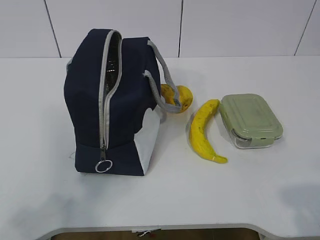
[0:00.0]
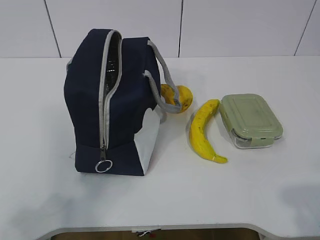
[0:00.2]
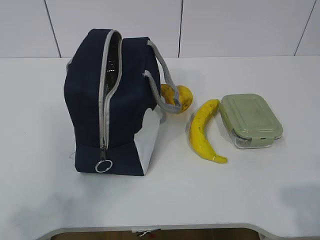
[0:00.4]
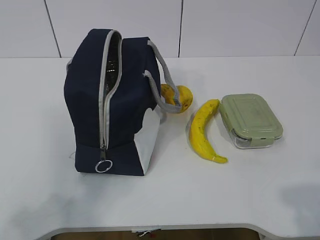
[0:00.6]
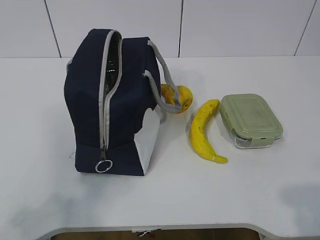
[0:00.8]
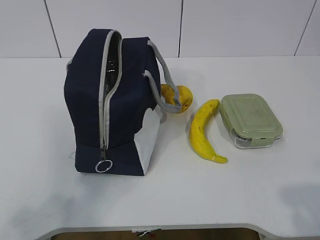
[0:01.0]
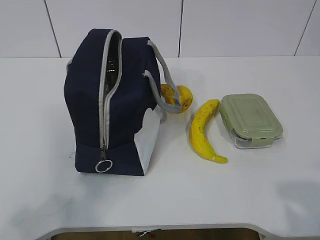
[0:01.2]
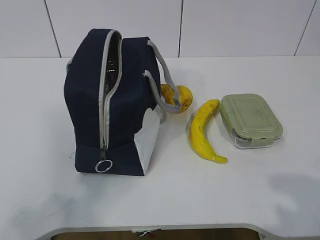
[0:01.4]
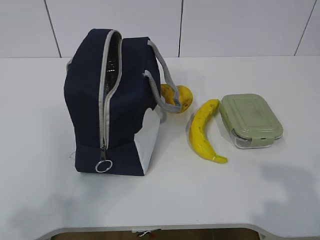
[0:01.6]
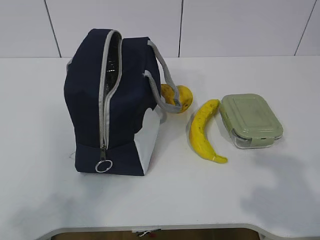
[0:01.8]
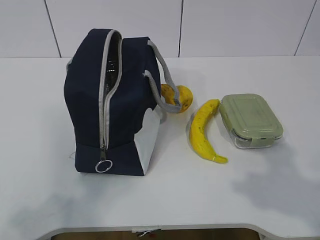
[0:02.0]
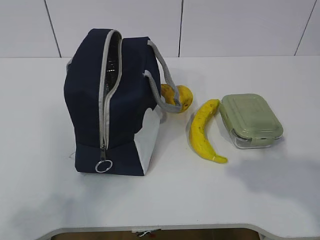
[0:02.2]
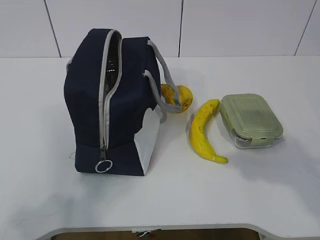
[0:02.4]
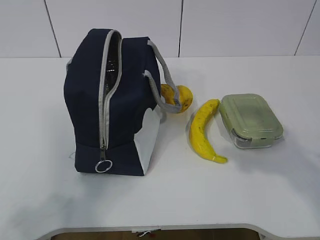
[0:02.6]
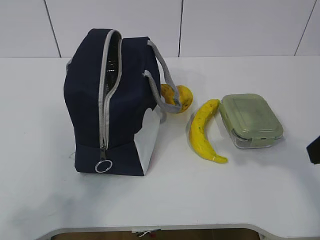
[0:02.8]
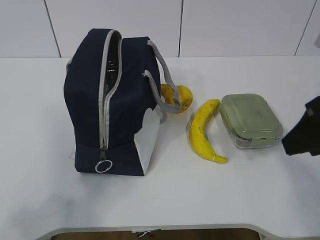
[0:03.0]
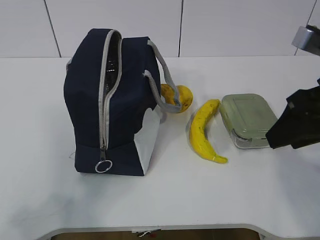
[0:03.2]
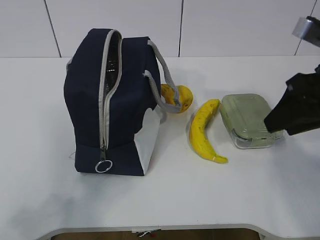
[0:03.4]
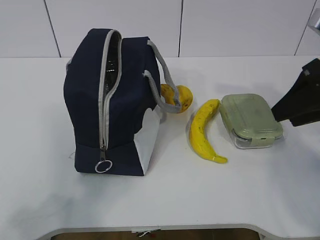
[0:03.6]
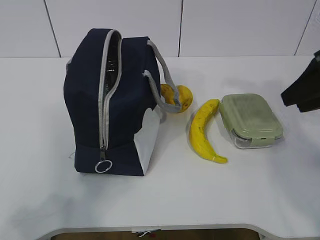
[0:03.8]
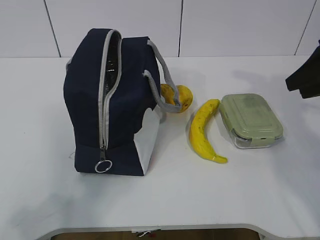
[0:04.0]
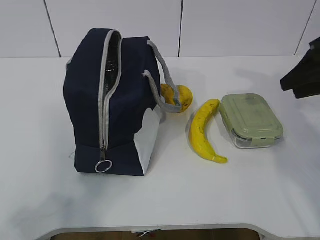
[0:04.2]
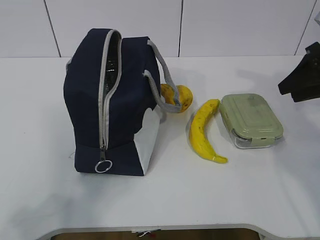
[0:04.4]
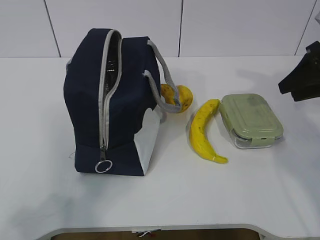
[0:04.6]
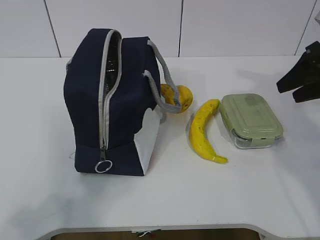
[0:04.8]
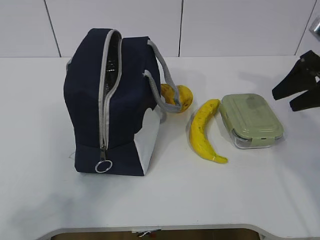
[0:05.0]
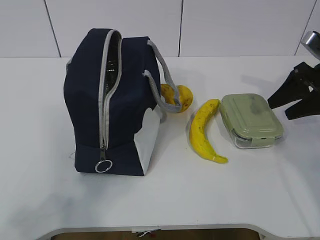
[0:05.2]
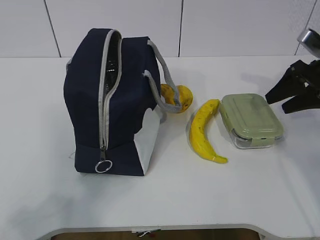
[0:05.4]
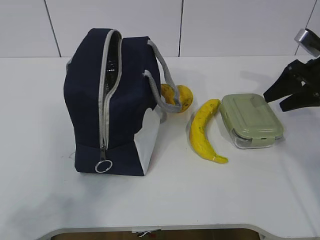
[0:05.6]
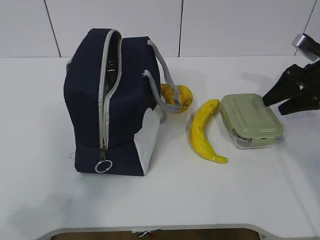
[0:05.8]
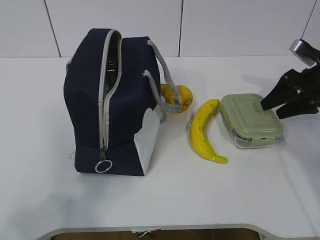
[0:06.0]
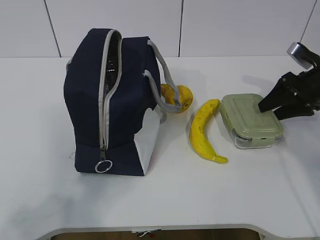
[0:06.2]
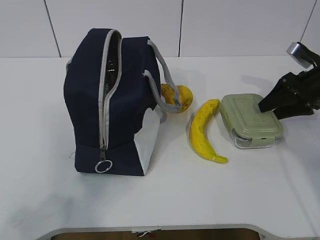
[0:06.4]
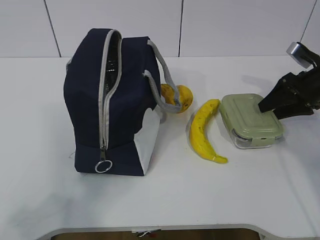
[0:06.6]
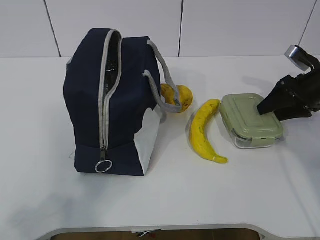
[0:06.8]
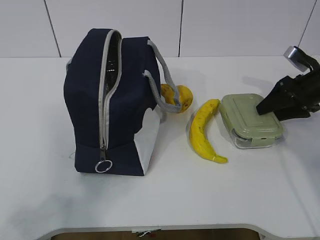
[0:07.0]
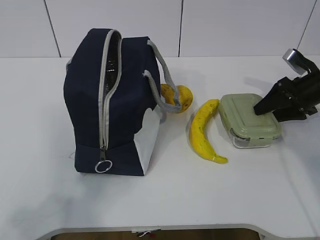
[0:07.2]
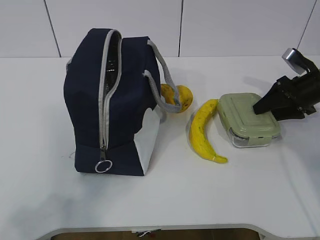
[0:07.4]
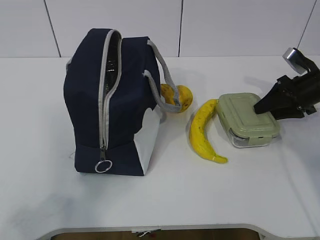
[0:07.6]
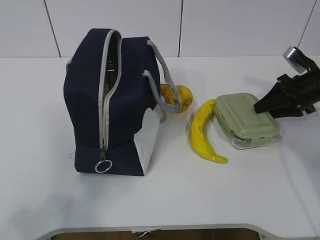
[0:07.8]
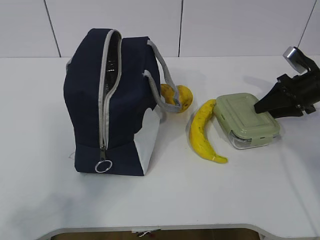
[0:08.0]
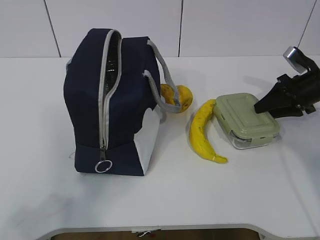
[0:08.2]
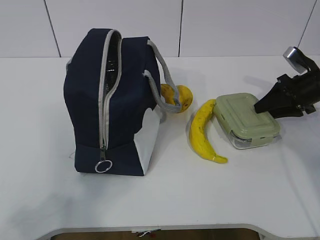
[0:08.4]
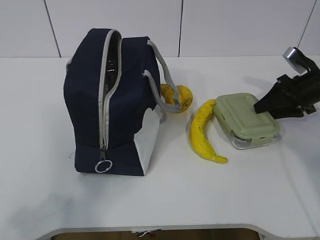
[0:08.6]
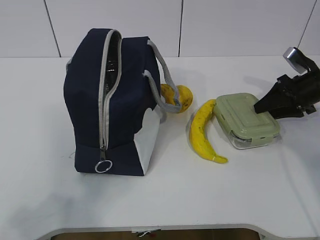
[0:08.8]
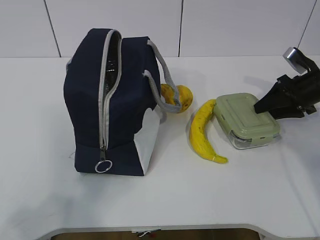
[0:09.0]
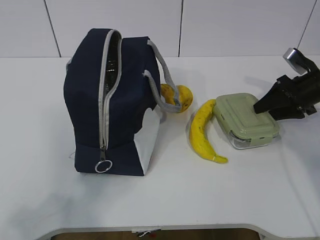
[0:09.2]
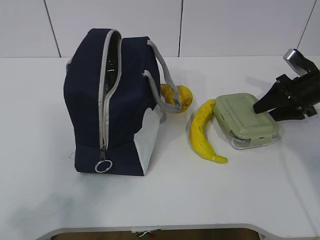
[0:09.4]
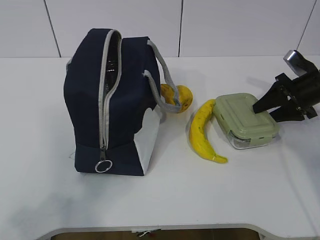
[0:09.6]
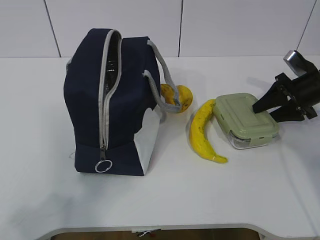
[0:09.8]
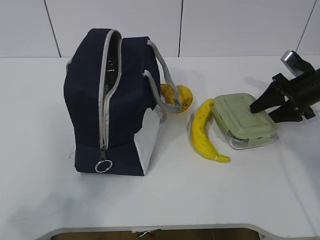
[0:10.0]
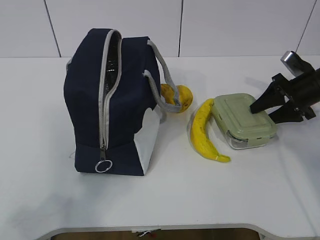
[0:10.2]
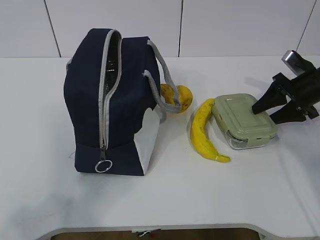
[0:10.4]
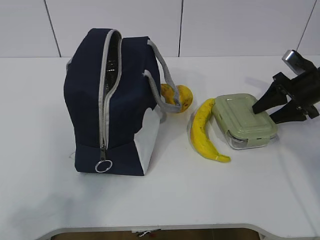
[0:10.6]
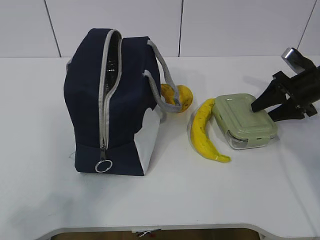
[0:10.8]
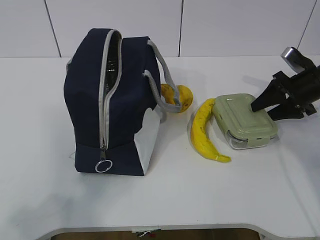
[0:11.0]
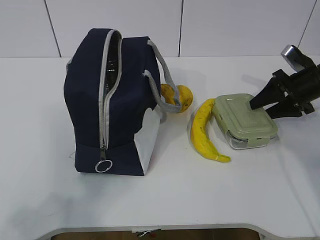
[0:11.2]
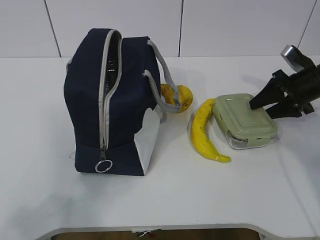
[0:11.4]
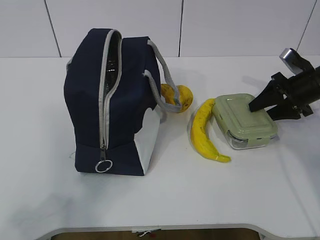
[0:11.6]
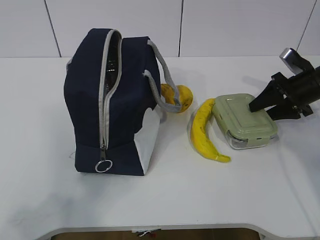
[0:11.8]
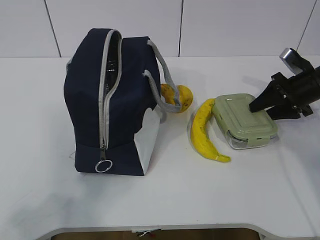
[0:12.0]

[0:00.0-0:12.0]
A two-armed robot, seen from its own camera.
Step, 0:00.0 to 0:10.4: Grab the lunch box with your right hand.
0:01.6 to 0:03.0: The right gripper is displaced forward by roughly 20 cm.
0:03.0 to 0:04.4: The right gripper moves forward and to the right, some 20 cm.
0:04.4 to 0:06.0: The right gripper goes some 10 cm downward and forward.
0:06.0 to 0:07.6: The grippers move only a little.
0:07.6 to 0:09.0: Both grippers stay put.
0:09.0 to 0:12.0: The grippers stay close to where they were, moving slightly.

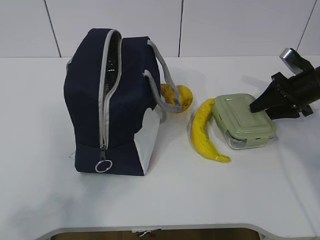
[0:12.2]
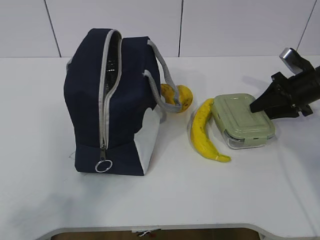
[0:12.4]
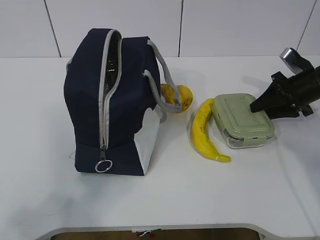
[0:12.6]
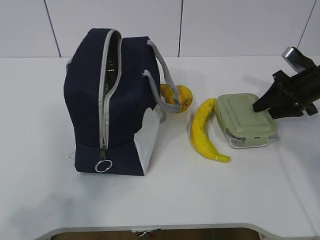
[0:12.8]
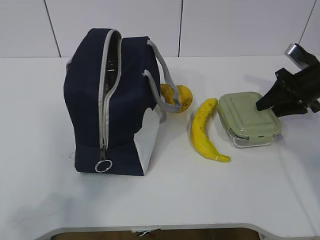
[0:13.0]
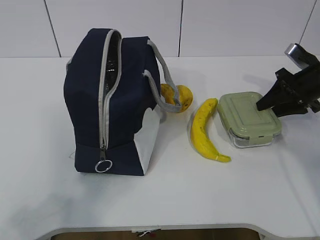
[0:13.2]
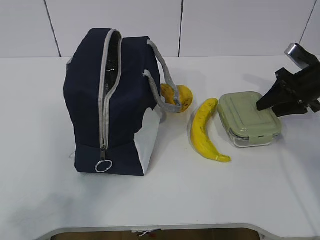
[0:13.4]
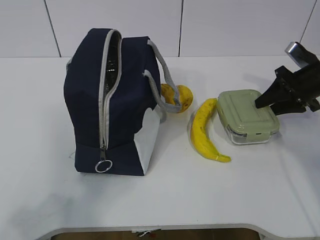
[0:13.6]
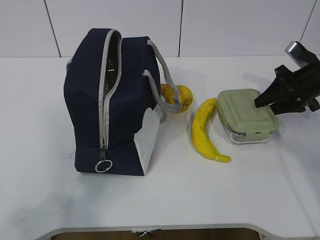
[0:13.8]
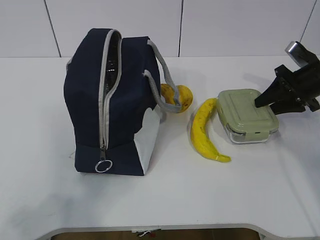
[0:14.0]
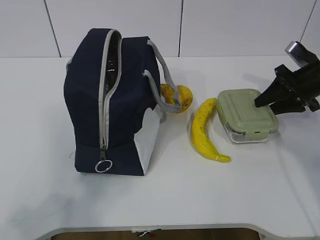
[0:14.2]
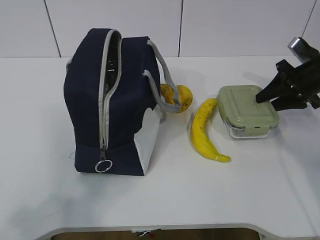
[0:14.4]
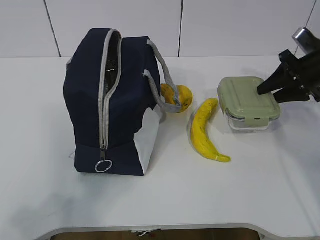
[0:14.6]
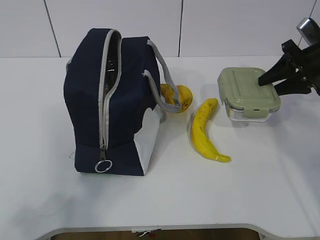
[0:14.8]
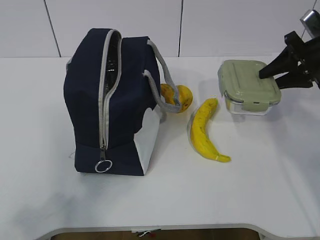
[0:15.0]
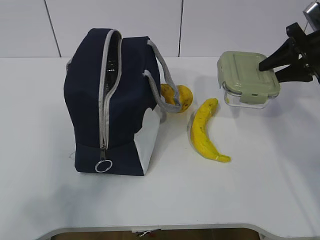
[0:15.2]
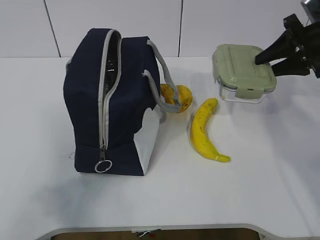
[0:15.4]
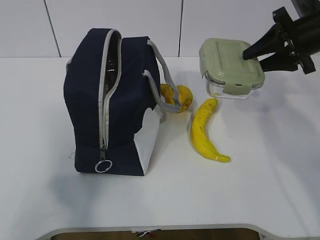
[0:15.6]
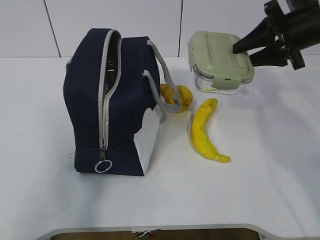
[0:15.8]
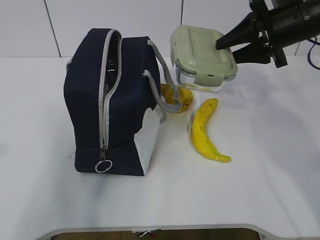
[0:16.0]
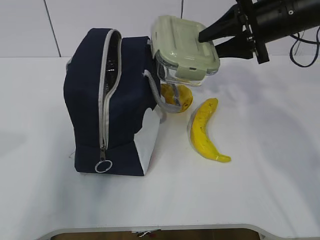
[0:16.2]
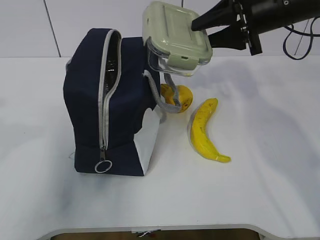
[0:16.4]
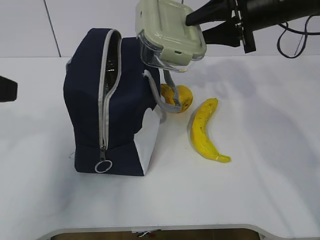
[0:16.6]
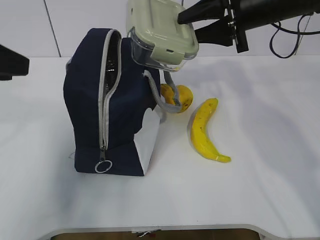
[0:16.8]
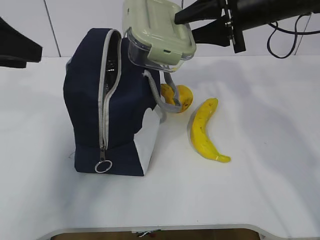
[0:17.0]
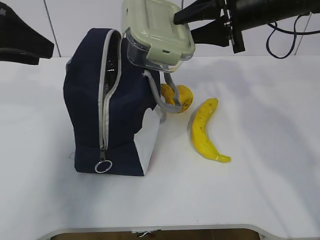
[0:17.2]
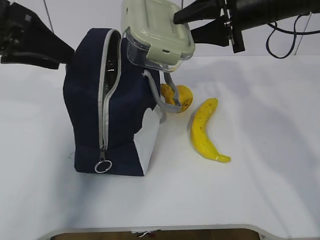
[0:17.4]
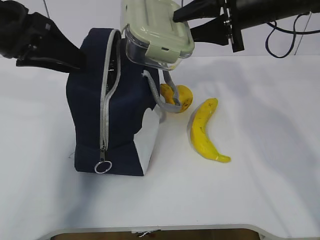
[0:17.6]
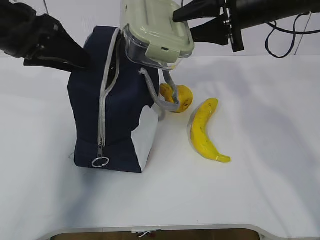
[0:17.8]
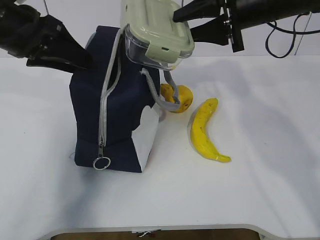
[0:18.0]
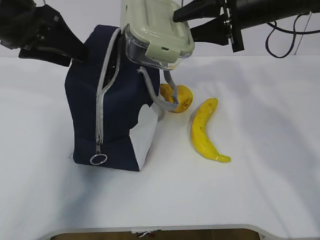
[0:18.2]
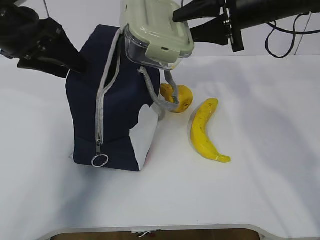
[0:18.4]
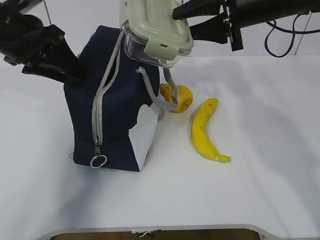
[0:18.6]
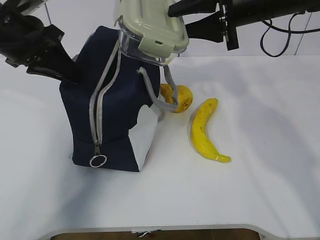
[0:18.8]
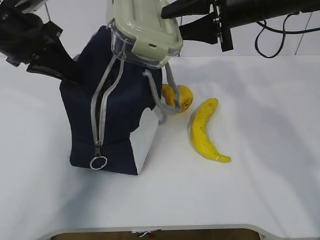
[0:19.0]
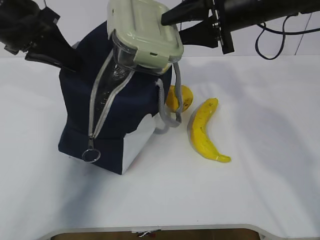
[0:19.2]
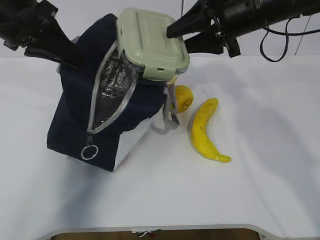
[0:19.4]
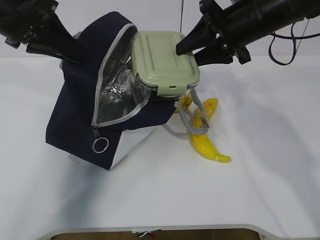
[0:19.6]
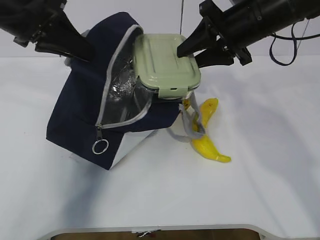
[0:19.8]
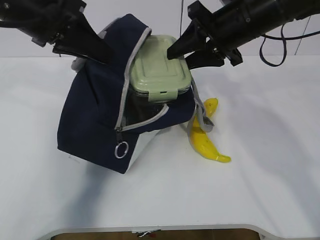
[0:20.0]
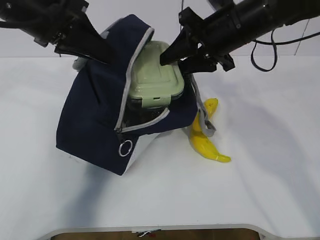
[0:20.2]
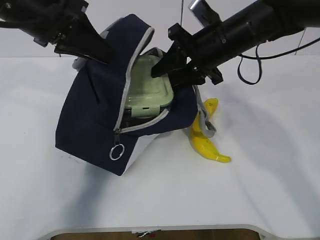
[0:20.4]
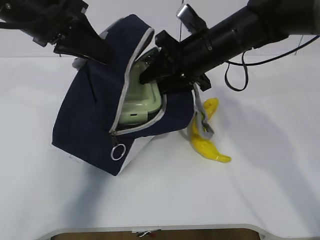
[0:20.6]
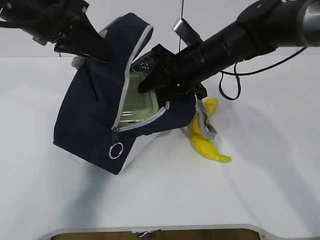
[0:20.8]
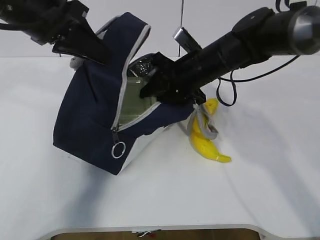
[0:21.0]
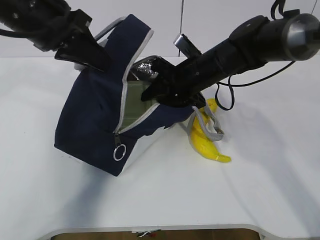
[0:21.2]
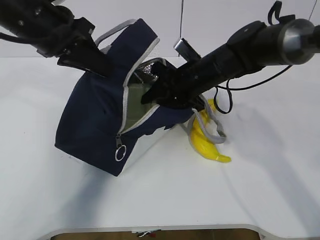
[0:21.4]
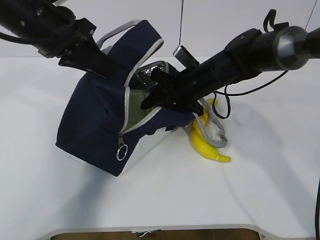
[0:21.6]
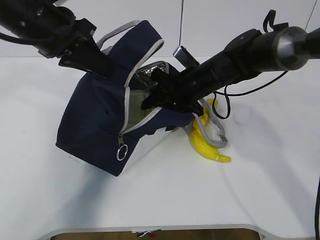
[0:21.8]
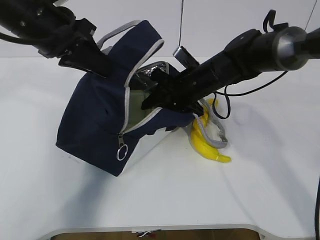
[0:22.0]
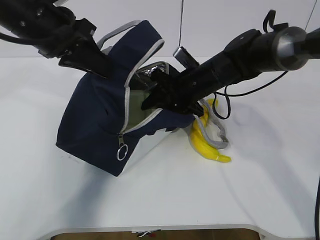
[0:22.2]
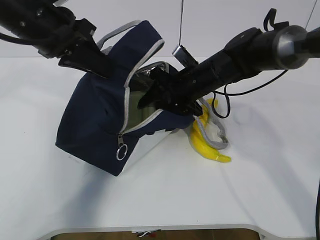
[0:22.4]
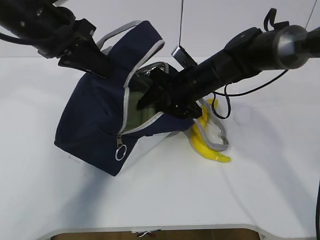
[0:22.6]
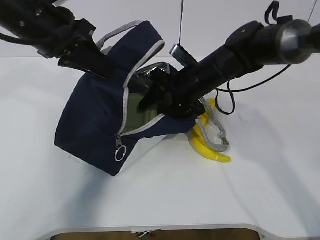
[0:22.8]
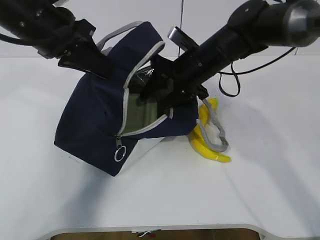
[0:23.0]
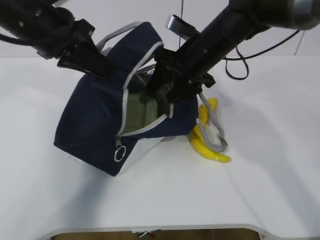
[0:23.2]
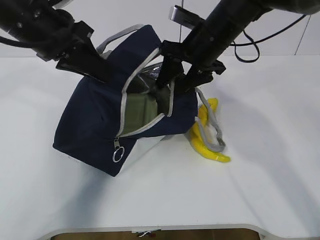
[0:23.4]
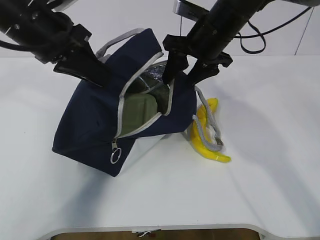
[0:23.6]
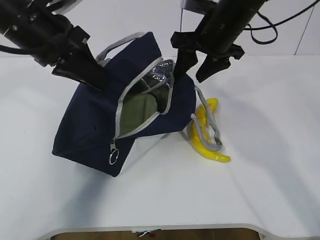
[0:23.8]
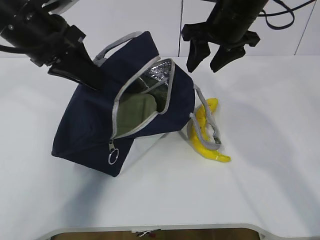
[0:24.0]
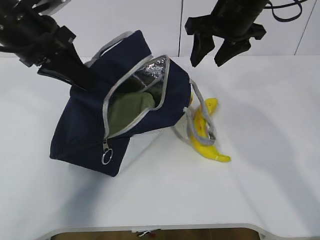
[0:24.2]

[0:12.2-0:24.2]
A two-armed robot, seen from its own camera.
Step, 0:12.2 to 0:15.8: Grab the lunch bag with your left hand.
Step, 0:16.0 to 0:18.8: Place it into the bag with your right hand.
Step, 0:19.0 to 0:22.0: Grab the banana with your right hand.
0:12.2 to 0:13.8: The grippers make only small movements.
0:13.8 to 0:15.2: The right gripper shifts about 5 cm upward.
0:15.2 to 0:16.6: The right gripper heads to the left and upward, covering some 15 cm, while the left gripper shifts about 20 cm forward.
0:16.6 to 0:18.2: The left gripper is displaced forward by approximately 15 cm.
0:18.2 to 0:19.8: The left gripper closes.
0:19.8 to 0:21.2: The right gripper heads downward and to the left, covering some 10 cm.
0:21.2 to 0:22.6: The grippers move only a little.
0:22.6 to 0:24.2: The right gripper goes some 15 cm upward.
